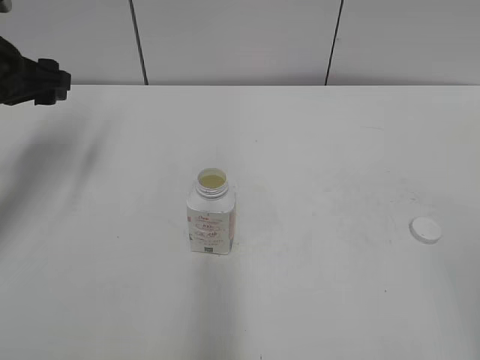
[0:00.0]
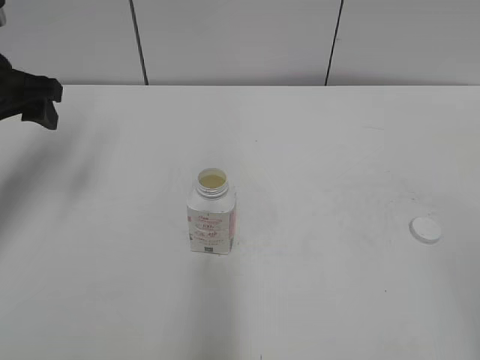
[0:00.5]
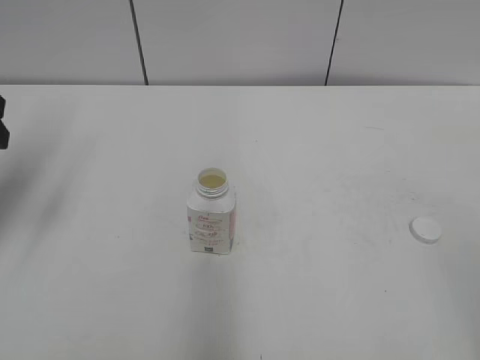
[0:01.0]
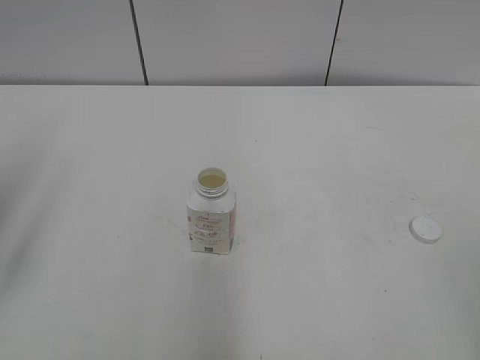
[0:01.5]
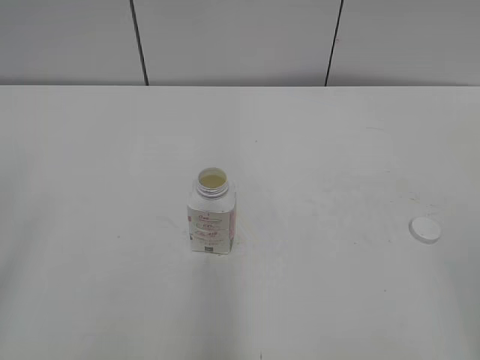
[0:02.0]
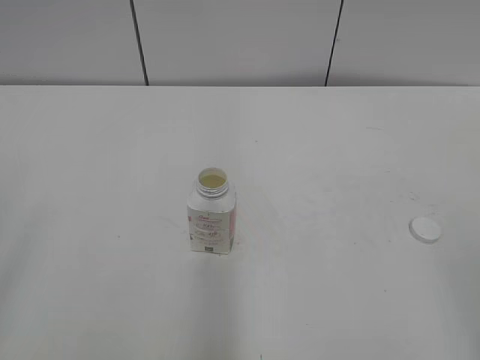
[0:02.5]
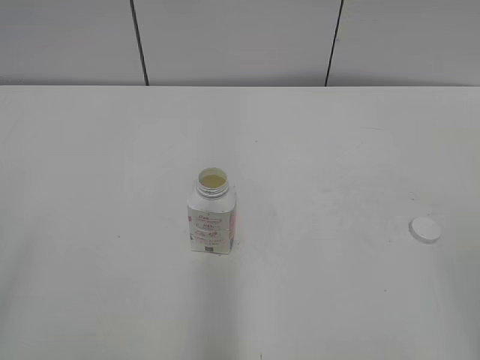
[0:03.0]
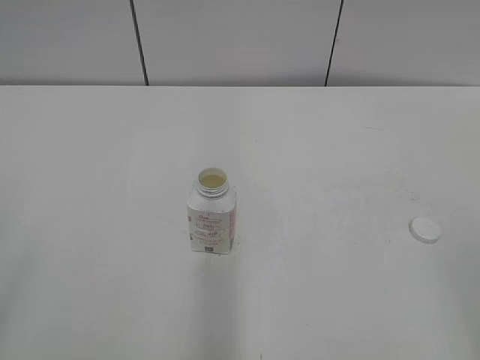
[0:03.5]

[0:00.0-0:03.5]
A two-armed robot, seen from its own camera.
0:00.0 to 0:02.0: The left gripper is displaced backward by some 30 cm.
